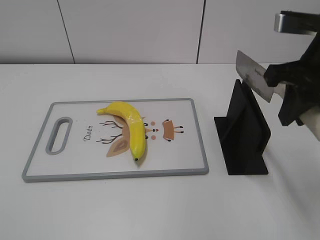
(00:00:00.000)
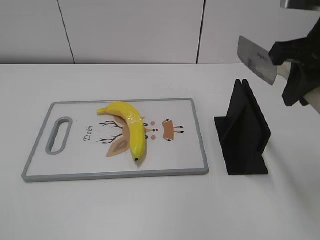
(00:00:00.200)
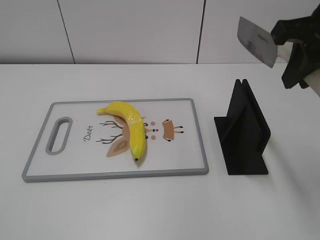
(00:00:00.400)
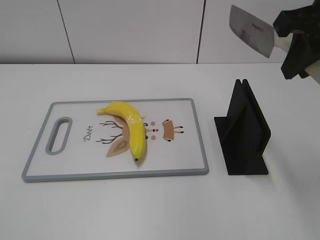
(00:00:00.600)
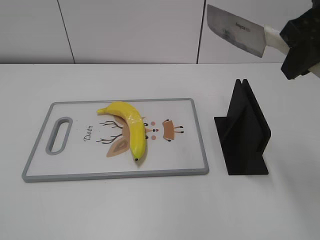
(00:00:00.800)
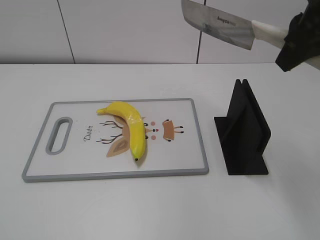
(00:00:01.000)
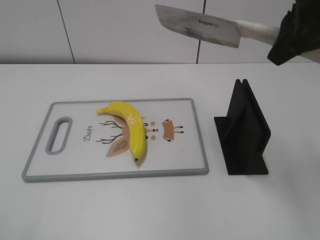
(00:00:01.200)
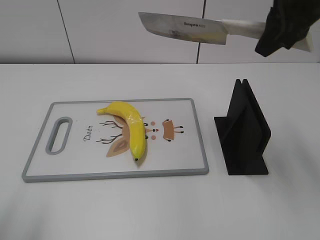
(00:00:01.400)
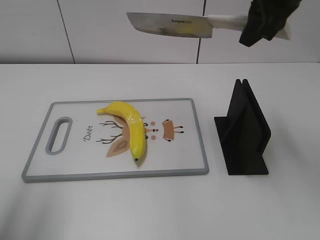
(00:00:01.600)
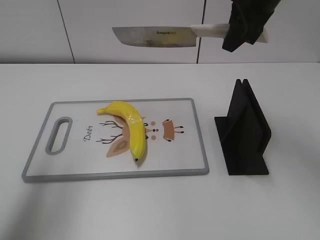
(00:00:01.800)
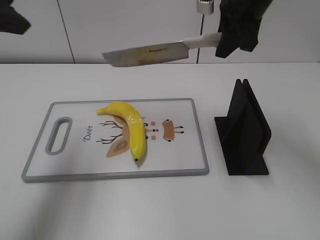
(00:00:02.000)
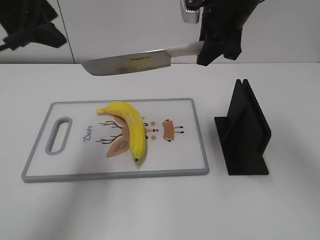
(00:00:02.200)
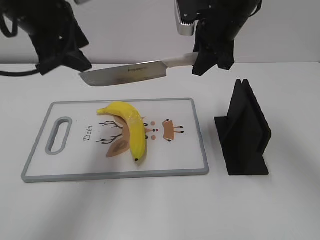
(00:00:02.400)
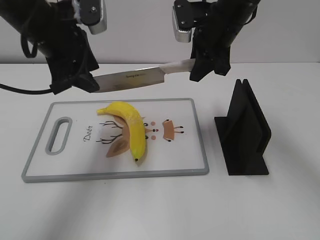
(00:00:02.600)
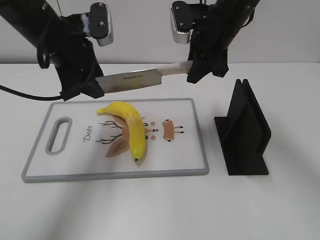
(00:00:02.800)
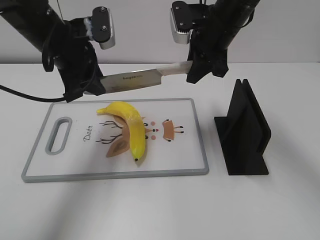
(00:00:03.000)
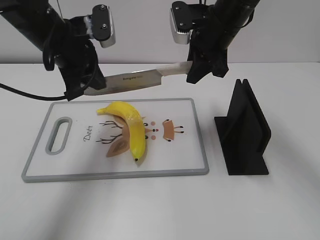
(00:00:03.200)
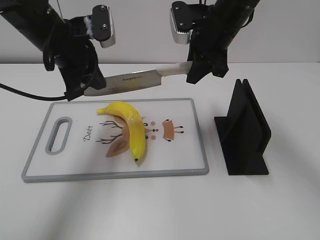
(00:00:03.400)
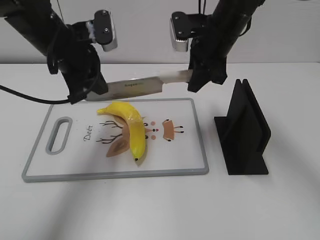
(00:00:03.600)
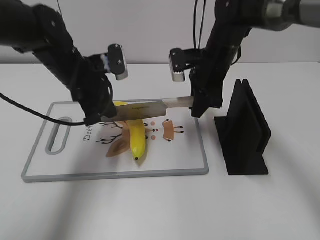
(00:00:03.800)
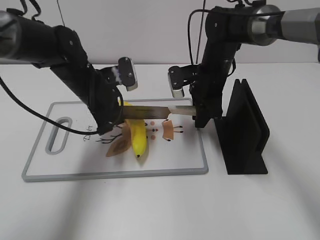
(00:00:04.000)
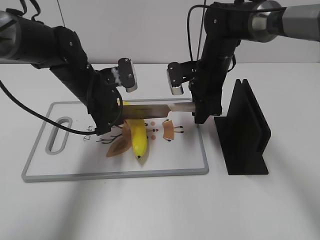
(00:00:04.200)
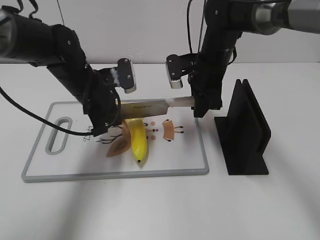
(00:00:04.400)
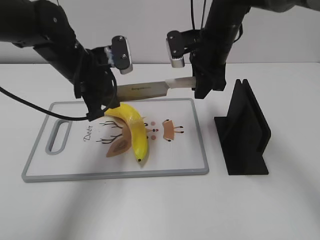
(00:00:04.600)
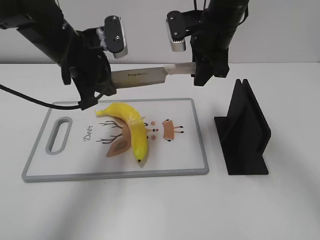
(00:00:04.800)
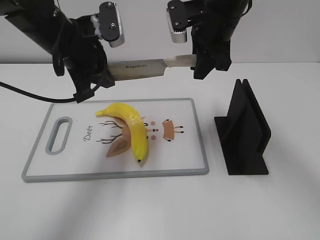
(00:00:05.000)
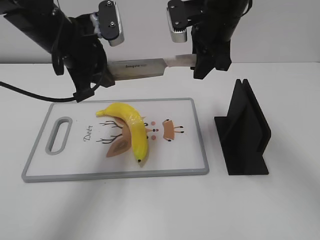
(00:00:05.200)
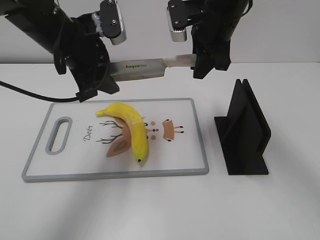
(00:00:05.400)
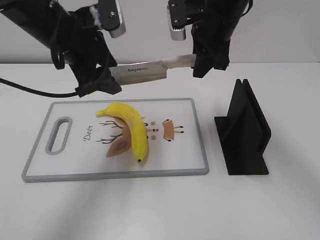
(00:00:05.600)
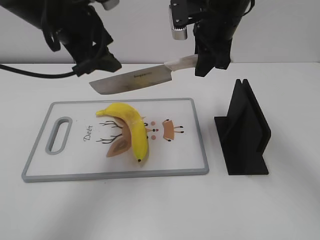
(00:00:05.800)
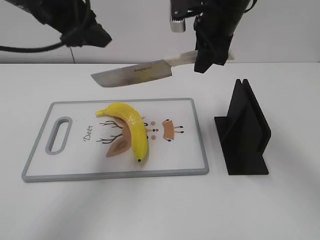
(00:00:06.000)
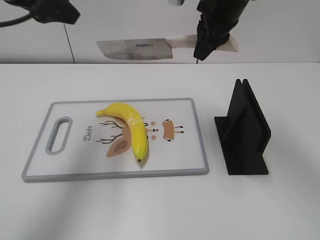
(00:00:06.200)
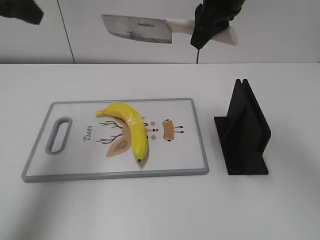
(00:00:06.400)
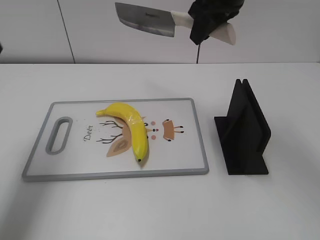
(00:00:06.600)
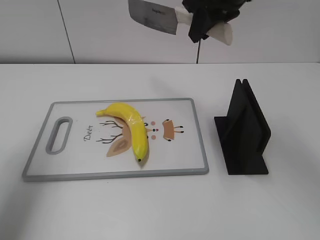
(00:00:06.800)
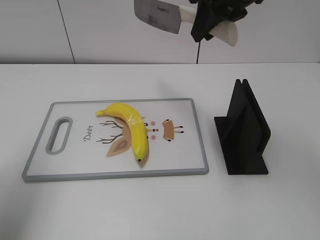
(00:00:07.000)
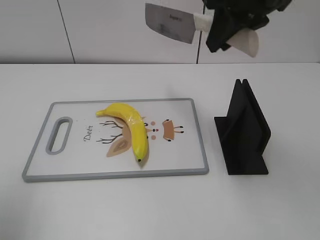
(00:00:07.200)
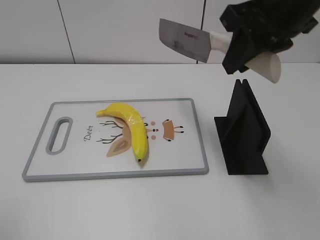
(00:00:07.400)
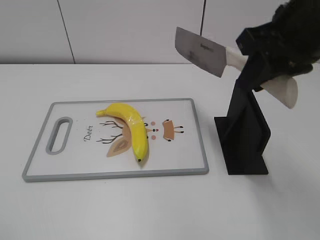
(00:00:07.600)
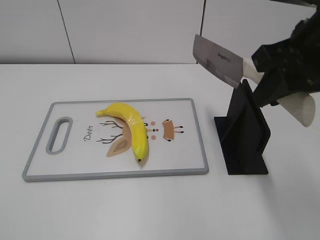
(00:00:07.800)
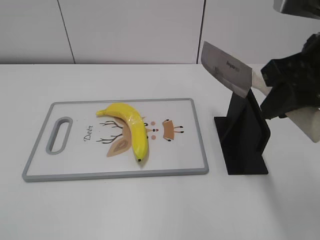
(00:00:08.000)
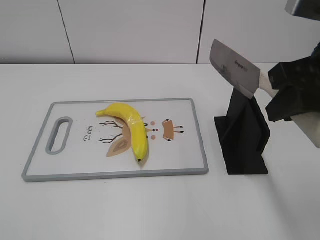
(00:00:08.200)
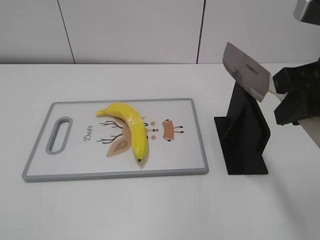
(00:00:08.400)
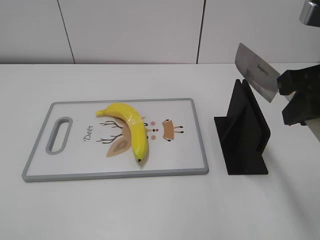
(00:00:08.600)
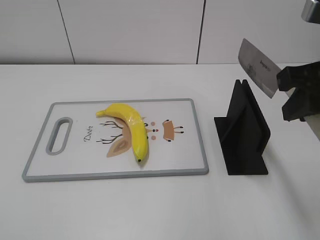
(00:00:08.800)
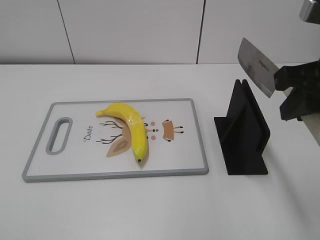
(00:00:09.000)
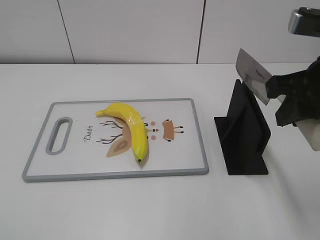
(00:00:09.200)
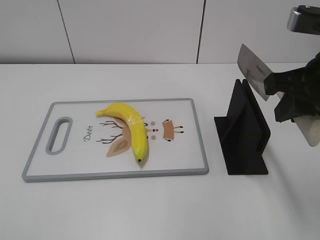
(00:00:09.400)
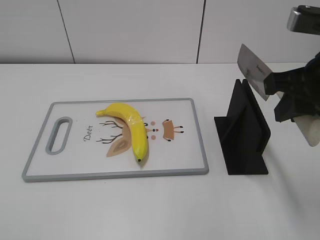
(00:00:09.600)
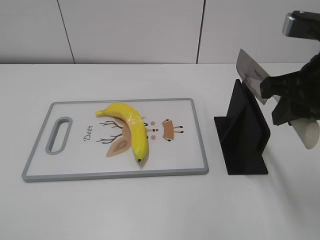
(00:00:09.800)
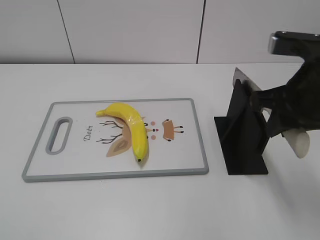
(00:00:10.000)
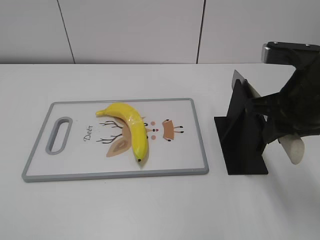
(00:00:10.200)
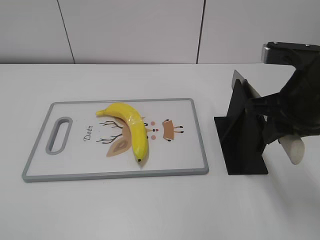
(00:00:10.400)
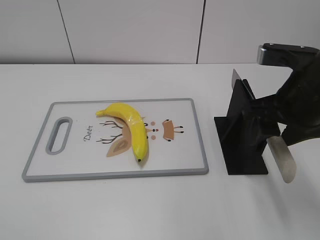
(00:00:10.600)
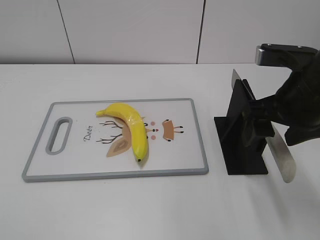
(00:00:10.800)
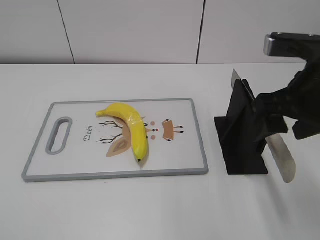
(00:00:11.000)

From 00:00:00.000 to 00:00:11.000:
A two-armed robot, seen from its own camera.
Task of the whole recording: cut plastic banana.
Step, from 00:00:00.000 to 00:00:05.200: Lift the knife with your right hand.
Step, from 00:00:05.400 to 00:00:06.600: Cut the banana with your right hand.
Step, from 00:00:06.800 to 00:00:07.800: Lift the knife with your right hand.
From 00:00:00.000 to 00:00:01.600: The right gripper heads forward, covering approximately 10 cm. The left gripper travels forward and upward by about 20 cm.
From 00:00:01.600 to 00:00:03.200: The left gripper heads forward, to the right and downward, covering roughly 25 cm, and closes its fingers, while the right gripper heads downward, to the left and forward, covering some 15 cm.
From 00:00:03.200 to 00:00:04.800: The left gripper moves approximately 10 cm downward and comes back; the right gripper goes downward and returns, roughly 10 cm each way.
From 00:00:04.800 to 00:00:06.200: The right gripper shifts about 5 cm upward. Meanwhile the left gripper travels upward and to the left by roughly 15 cm, and opens.
From 00:00:06.200 to 00:00:07.800: The left gripper travels backward and to the left by about 30 cm, while the right gripper travels backward and to the right by roughly 20 cm.
From 00:00:07.800 to 00:00:09.400: The left gripper shifts some 5 cm backward.
From 00:00:09.400 to 00:00:11.000: The right gripper opens.

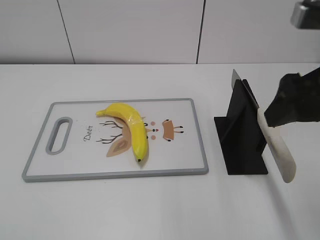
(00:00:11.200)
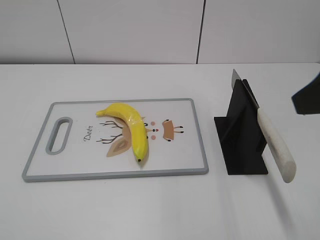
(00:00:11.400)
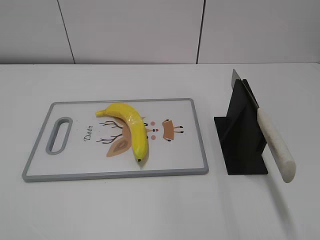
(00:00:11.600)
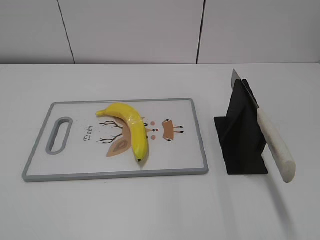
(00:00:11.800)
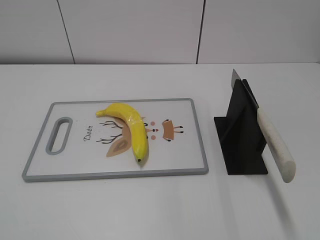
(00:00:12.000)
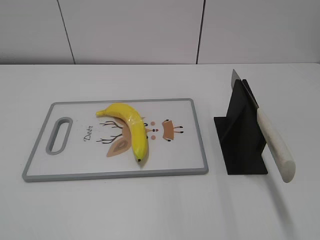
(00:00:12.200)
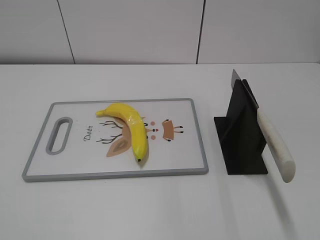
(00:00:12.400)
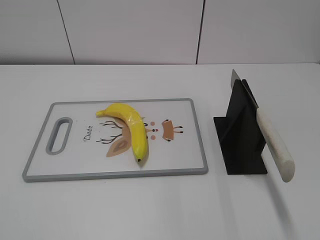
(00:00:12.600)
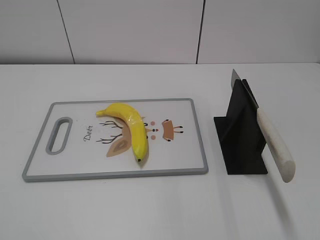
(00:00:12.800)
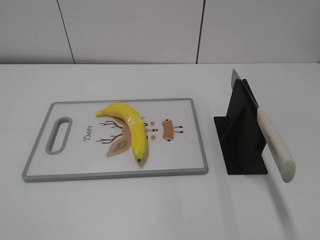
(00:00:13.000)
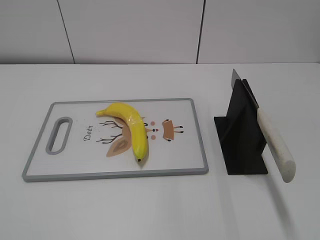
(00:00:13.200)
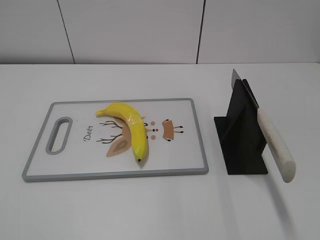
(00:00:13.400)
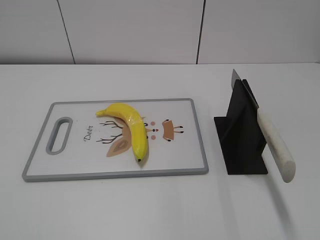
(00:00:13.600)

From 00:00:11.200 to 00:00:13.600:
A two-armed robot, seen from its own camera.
Task of the whole recording: cut plastic banana.
Step, from 00:00:11.200 to 00:00:13.600: Place the knife on the storage rack with your right hand.
From 00:00:11.200 to 00:00:12.400: The right gripper heads backward and to the right, covering about 25 cm.
